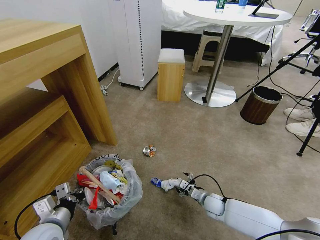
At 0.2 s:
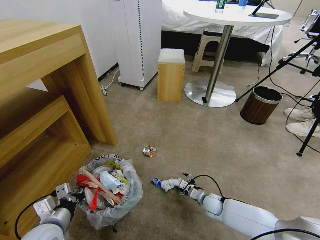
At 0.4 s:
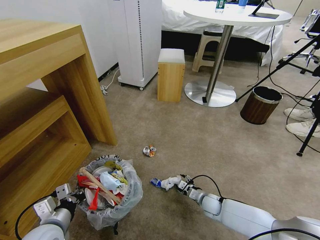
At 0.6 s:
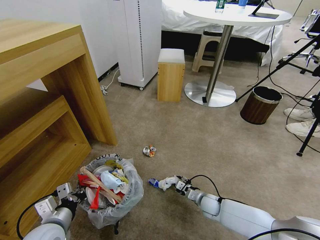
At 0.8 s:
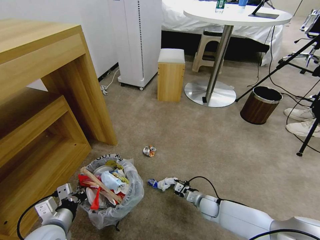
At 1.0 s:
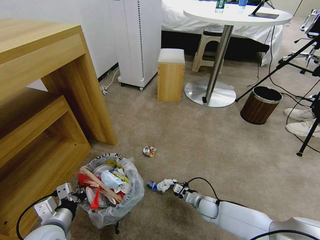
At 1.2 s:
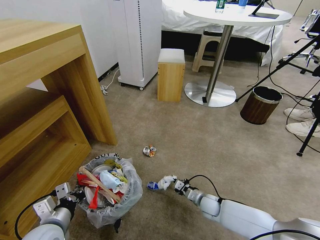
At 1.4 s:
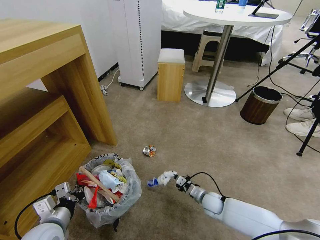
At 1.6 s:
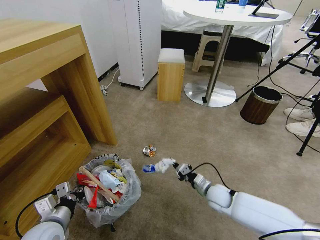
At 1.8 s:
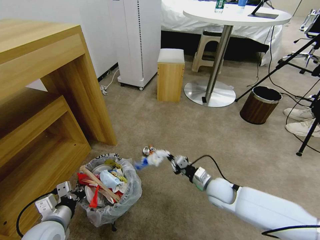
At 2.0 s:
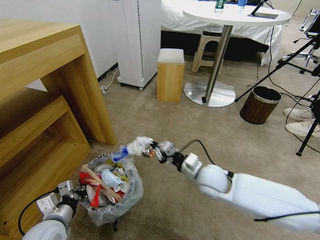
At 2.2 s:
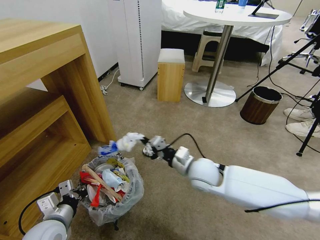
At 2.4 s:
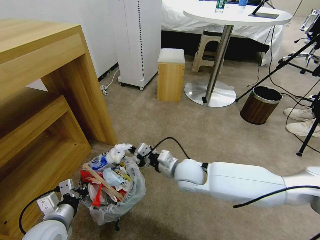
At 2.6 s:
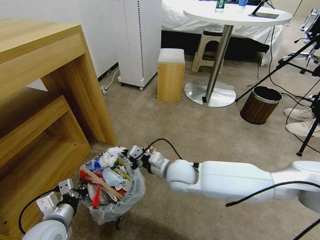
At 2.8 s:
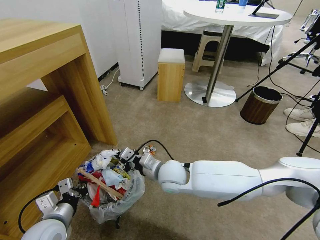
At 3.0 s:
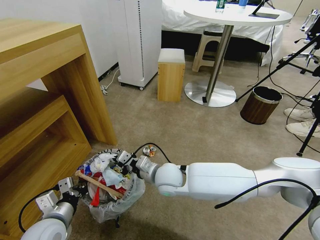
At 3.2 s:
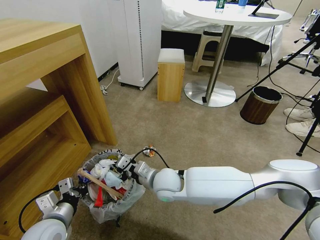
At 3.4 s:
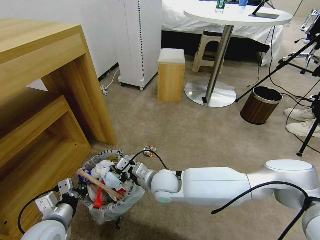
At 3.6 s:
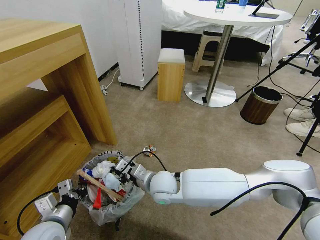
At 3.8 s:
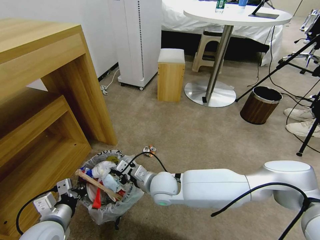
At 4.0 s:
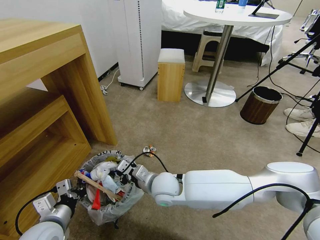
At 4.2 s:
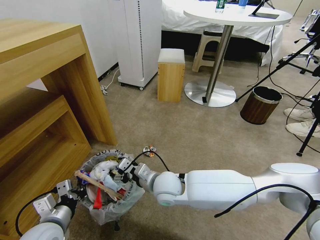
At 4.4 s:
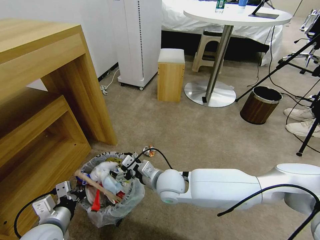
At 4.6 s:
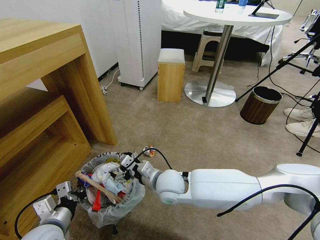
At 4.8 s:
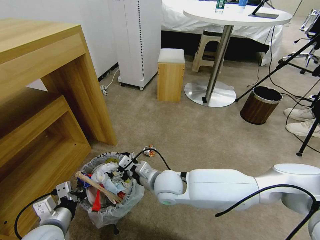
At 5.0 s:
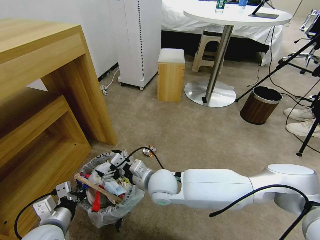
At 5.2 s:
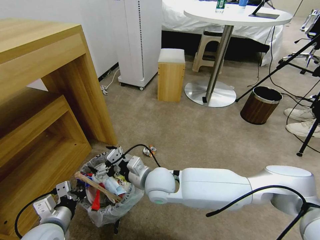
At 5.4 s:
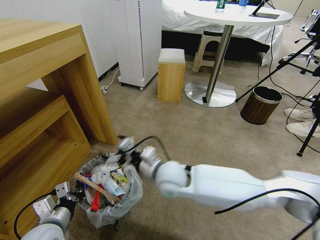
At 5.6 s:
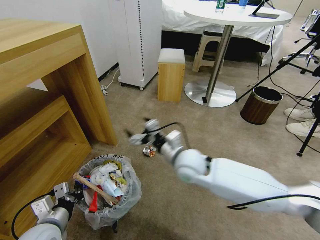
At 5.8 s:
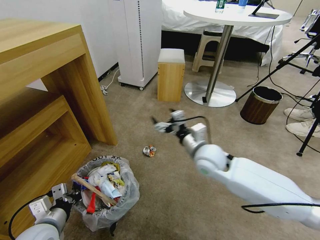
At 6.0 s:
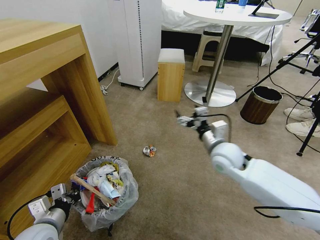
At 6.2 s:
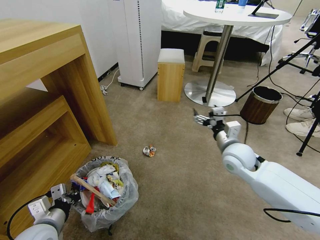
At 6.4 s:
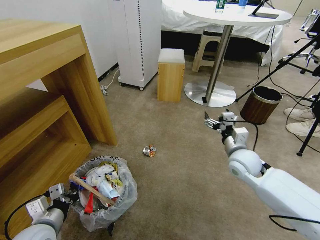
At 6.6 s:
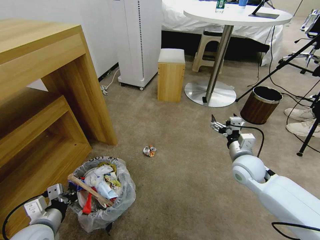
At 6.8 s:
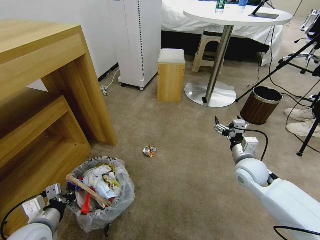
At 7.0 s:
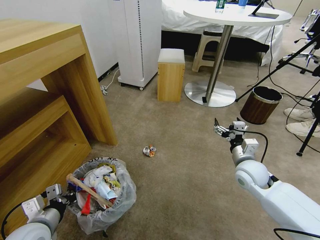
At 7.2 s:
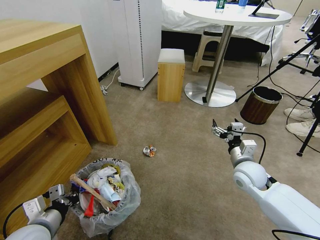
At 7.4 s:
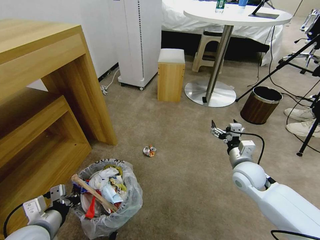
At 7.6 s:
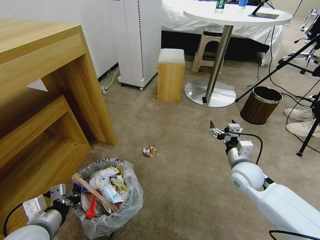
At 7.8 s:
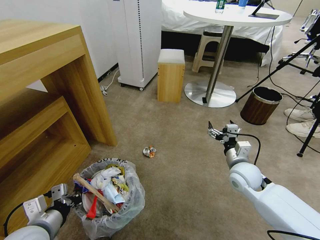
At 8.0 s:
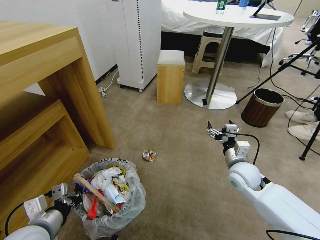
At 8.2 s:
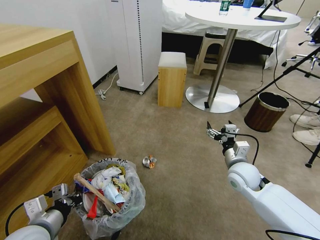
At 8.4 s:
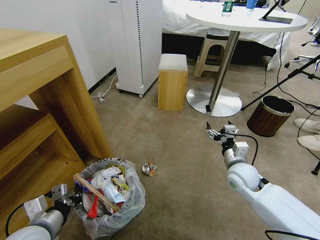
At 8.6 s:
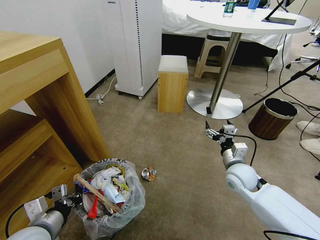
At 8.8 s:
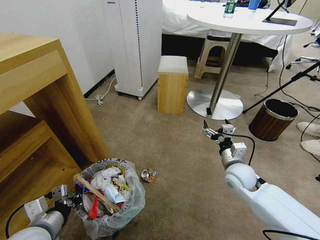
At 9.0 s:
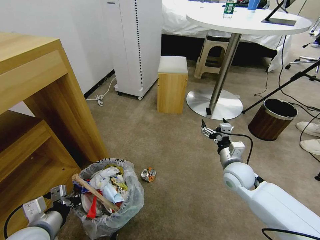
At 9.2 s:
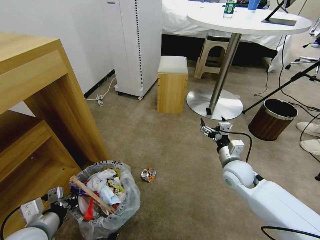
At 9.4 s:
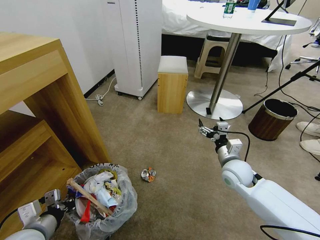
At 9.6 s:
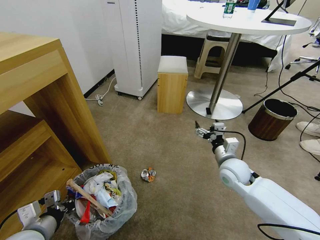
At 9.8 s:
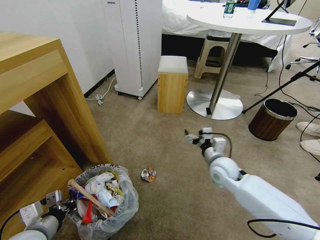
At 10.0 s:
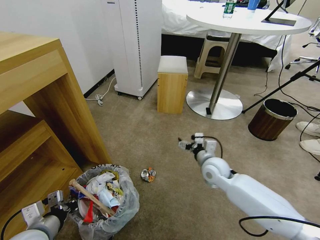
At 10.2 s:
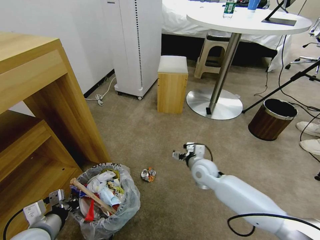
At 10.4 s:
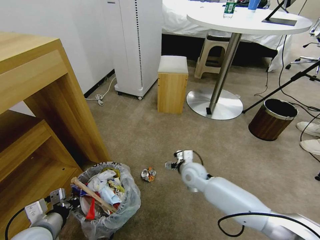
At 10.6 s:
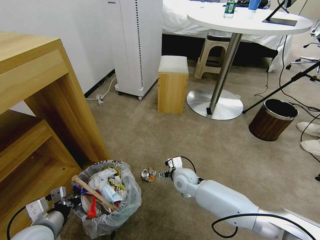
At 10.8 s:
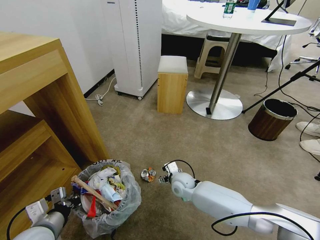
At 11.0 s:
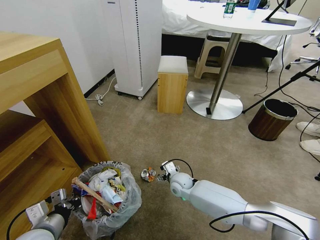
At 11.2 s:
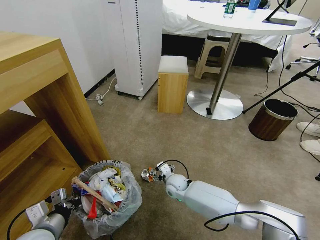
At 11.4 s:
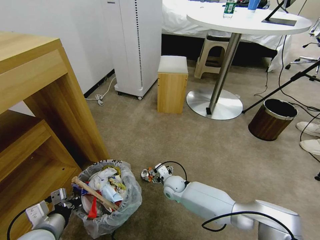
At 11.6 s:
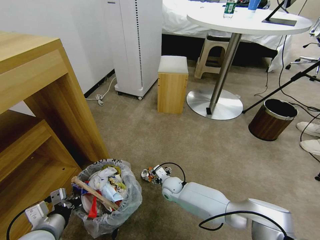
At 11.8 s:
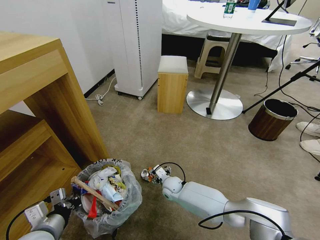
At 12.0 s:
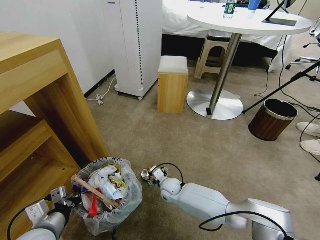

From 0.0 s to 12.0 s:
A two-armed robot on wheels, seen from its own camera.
Task of the whole recording: Pick up the trash bin and place the garbage on the floor into it.
From 0.0 s to 1.6 s: The right gripper moves upward, approximately 5 cm, and closes its fingers.
From 1.6 s to 3.0 s: The right gripper is displaced to the left and upward by about 25 cm.
From 3.0 s to 4.4 s: The right gripper opens up.
From 4.4 s to 6.0 s: The right gripper heads to the right, covering about 20 cm.
From 6.0 s to 7.6 s: The right gripper heads to the right and downward, covering about 10 cm.
From 9.0 s to 10.4 s: The right gripper heads to the left and downward, covering about 15 cm.
From 10.4 s to 12.0 s: The right gripper moves downward and to the left, roughly 15 cm.

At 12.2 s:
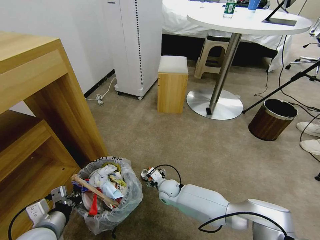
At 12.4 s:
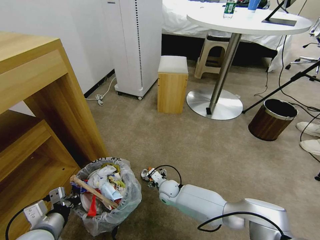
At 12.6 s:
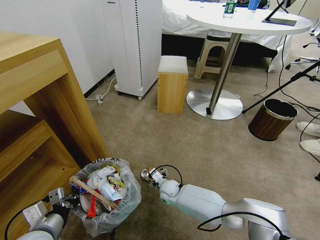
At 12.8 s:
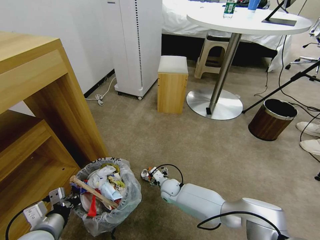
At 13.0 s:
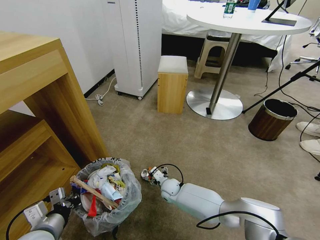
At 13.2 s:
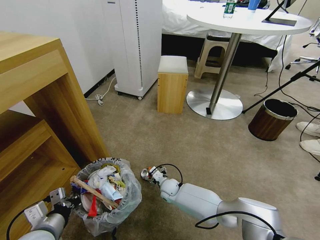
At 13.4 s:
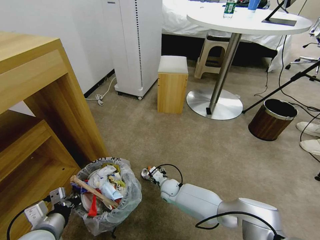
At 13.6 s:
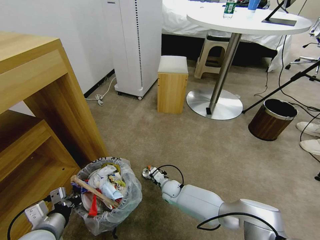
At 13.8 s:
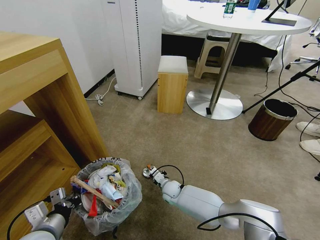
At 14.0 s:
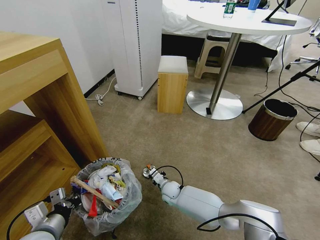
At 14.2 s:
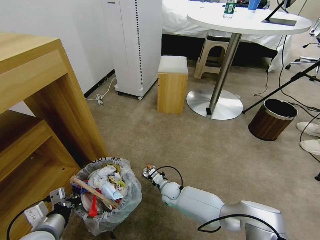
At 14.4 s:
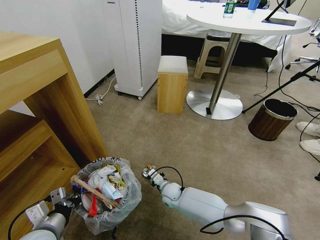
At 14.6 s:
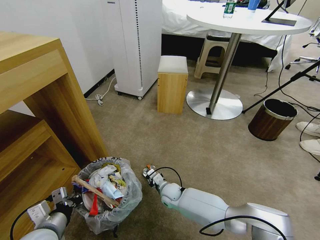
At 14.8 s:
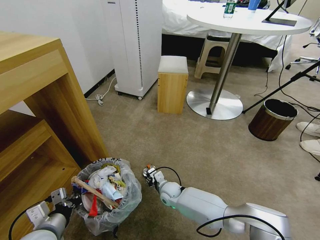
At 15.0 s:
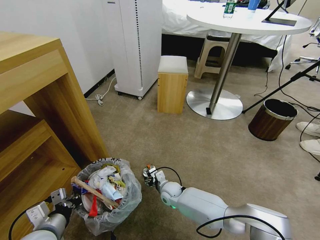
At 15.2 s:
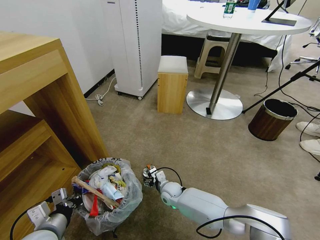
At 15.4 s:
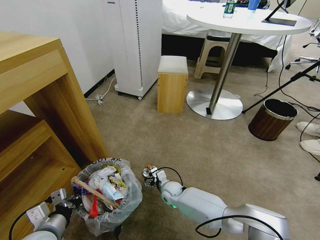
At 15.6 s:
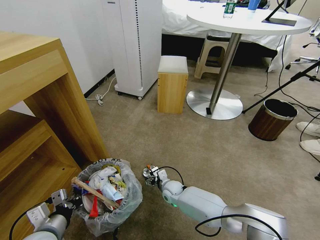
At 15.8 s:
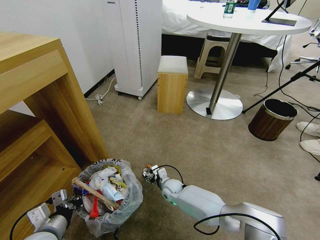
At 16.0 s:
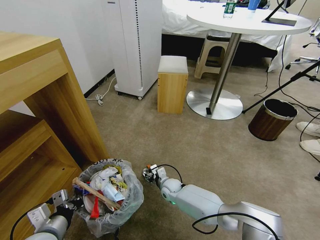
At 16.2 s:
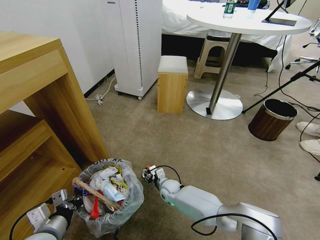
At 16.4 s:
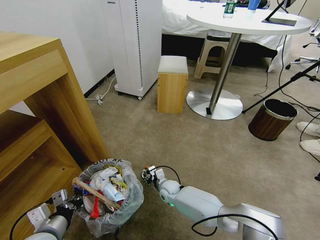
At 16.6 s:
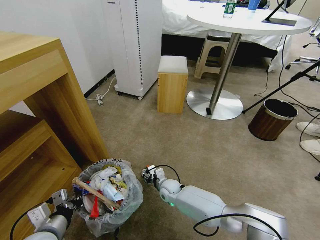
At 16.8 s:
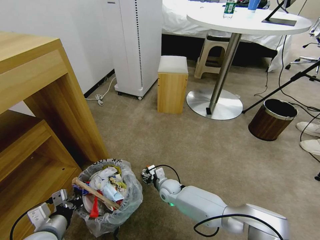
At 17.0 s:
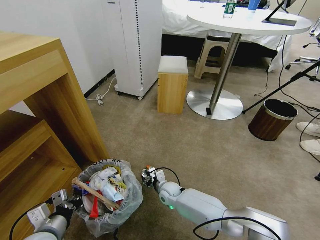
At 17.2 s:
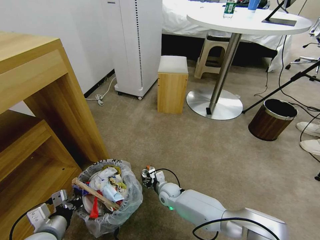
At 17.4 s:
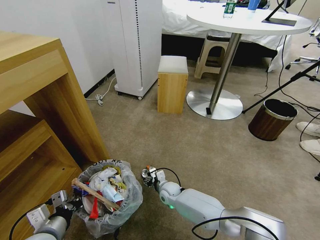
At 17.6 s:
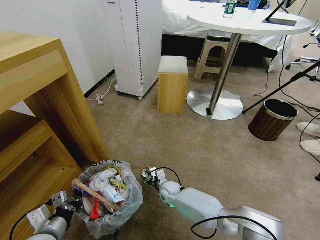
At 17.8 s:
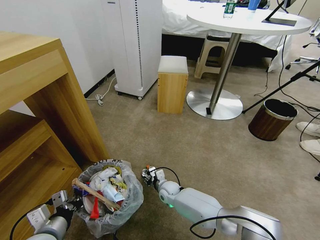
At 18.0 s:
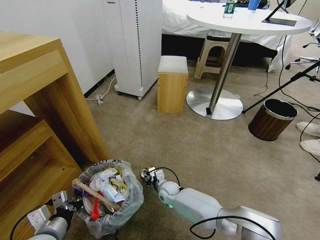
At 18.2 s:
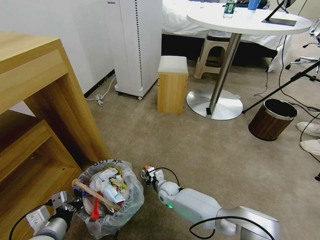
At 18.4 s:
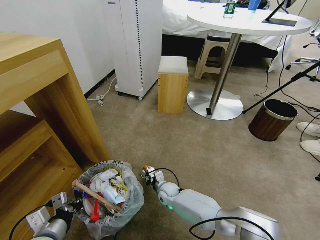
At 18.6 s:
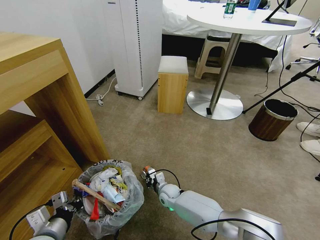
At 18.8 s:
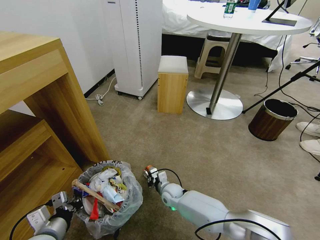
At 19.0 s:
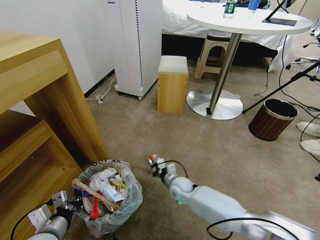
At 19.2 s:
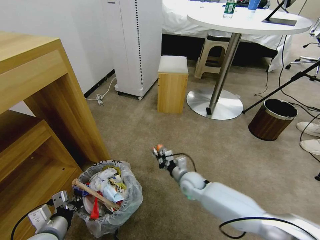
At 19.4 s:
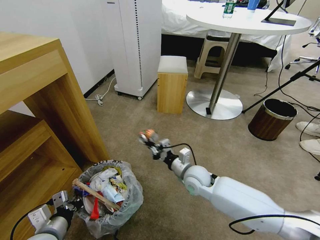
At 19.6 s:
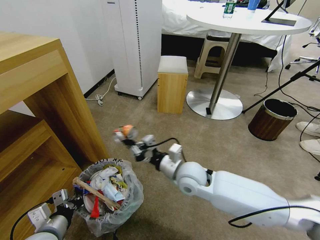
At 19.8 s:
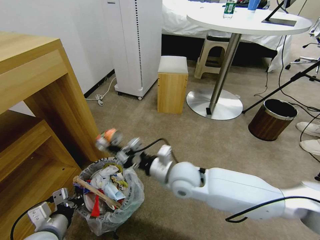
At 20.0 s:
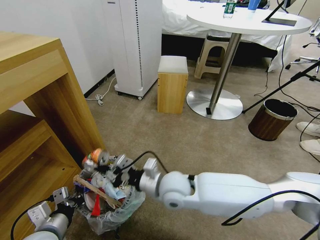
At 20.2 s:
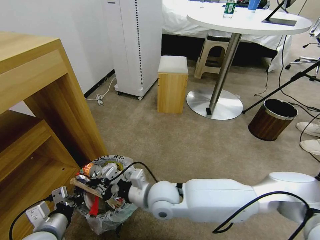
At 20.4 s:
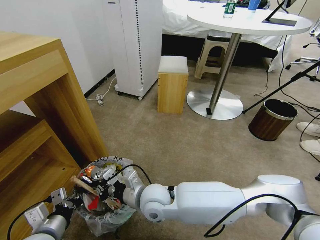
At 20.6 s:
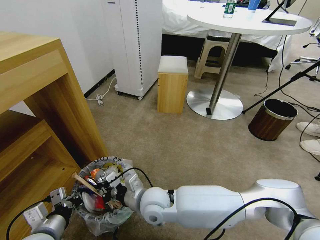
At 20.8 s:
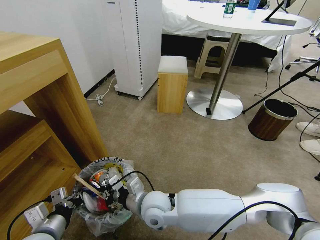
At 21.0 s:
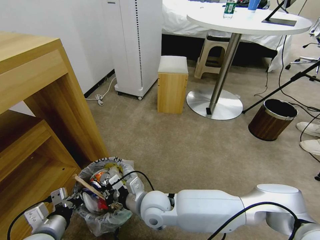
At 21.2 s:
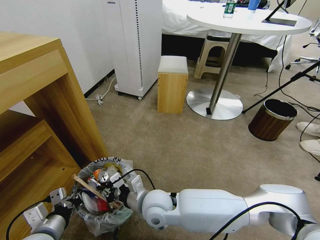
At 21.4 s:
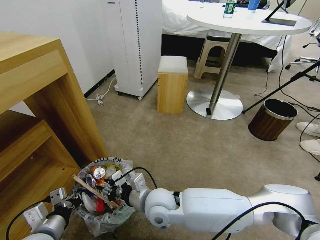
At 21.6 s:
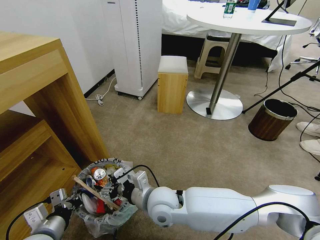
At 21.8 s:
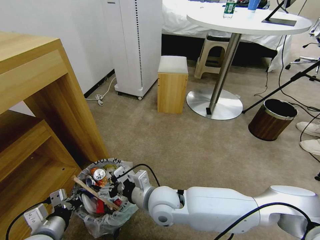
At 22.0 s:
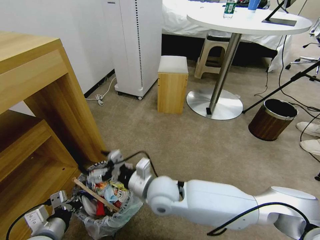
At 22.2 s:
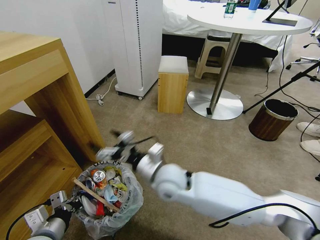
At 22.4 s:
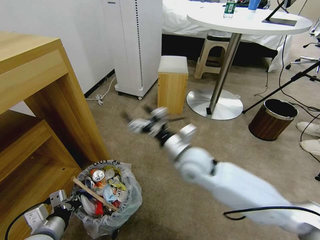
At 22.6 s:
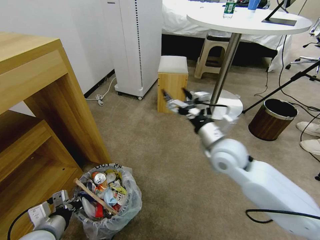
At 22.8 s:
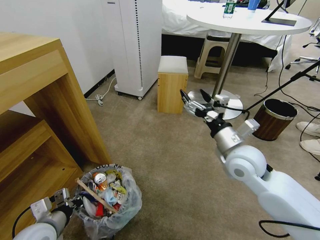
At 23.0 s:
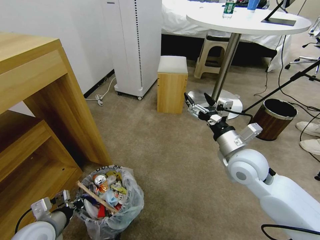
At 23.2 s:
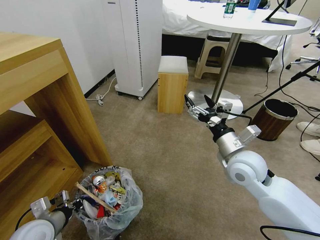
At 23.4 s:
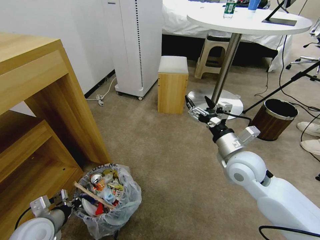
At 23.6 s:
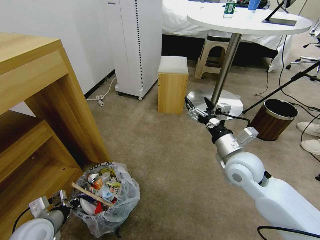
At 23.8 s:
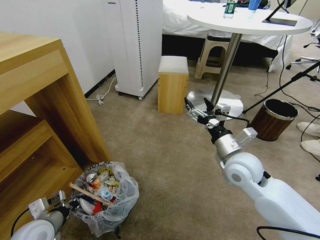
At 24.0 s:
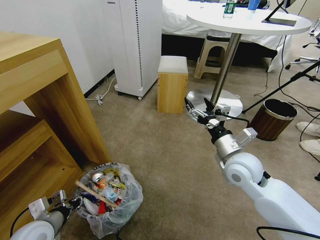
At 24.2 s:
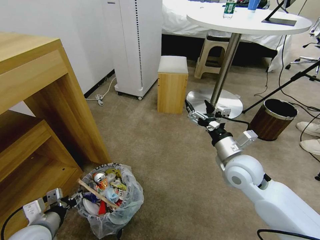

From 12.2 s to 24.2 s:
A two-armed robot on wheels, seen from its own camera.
Task of the whole recording: Pick up the trash bin and place the garbage on the floor into it.
From 12.2 s to 13.8 s: The right gripper closes up.
From 13.8 s to 15.2 s: The right gripper opens its fingers.
From 15.2 s to 16.6 s: The right gripper closes.
From 16.6 s to 18.2 s: The right gripper closes up.
From 18.2 s to 19.8 s: The right gripper heads upward, covering approximately 25 cm.
From 19.8 s to 21.2 s: The right gripper is displaced to the left, downward and backward by about 10 cm.
From 21.2 s to 22.6 s: The right gripper is displaced to the right, upward and forward by some 25 cm, and opens its fingers.
From 22.6 s to 24.2 s: The left gripper opens. Meanwhile the right gripper moves to the right, approximately 5 cm.
